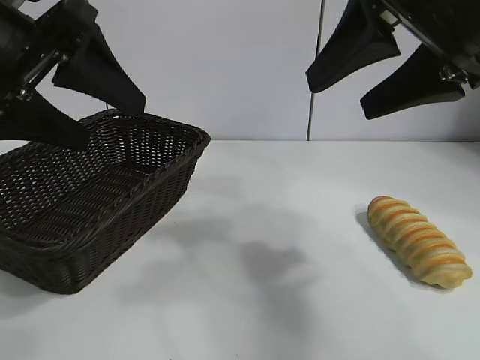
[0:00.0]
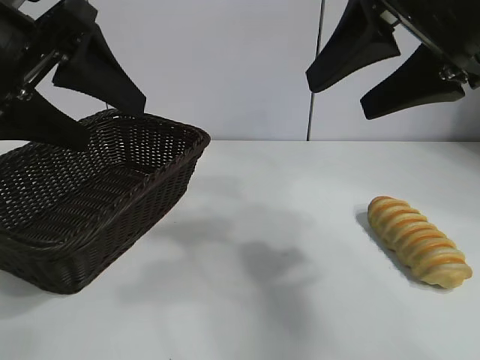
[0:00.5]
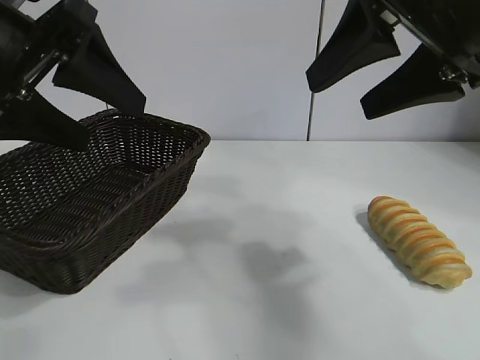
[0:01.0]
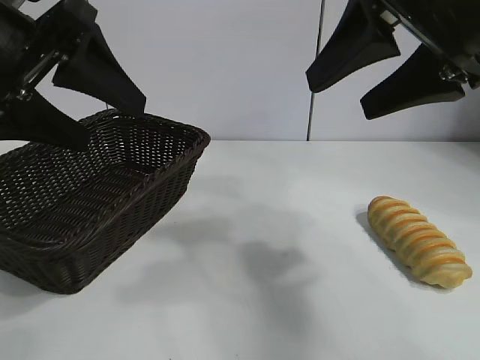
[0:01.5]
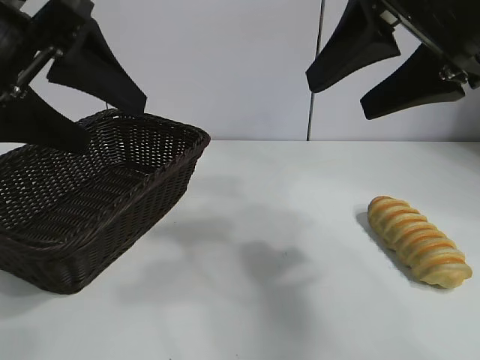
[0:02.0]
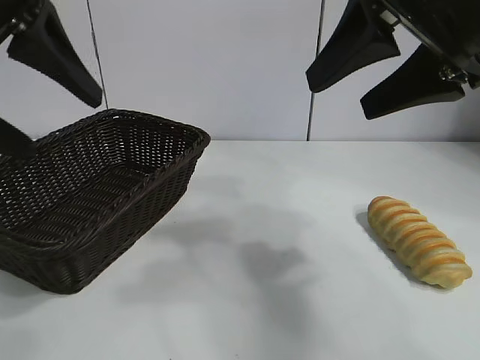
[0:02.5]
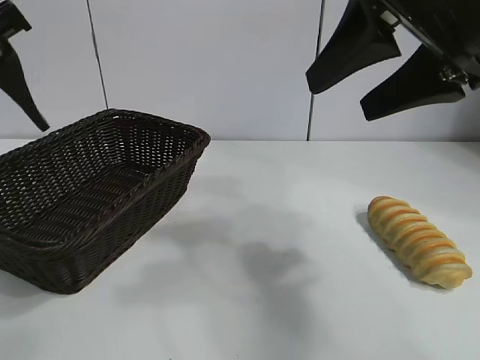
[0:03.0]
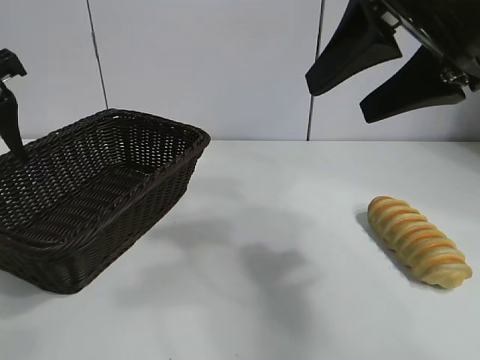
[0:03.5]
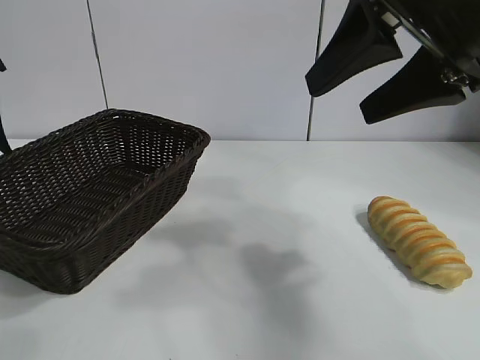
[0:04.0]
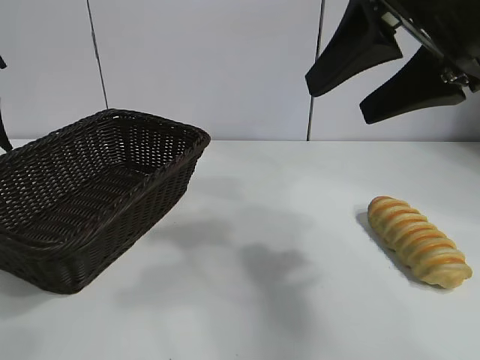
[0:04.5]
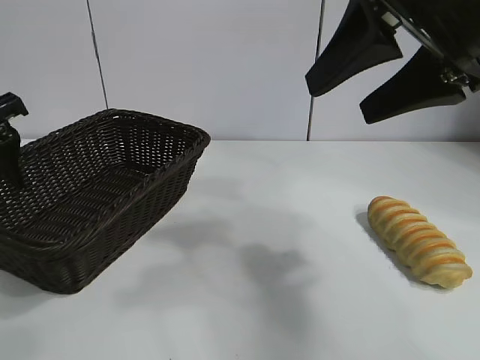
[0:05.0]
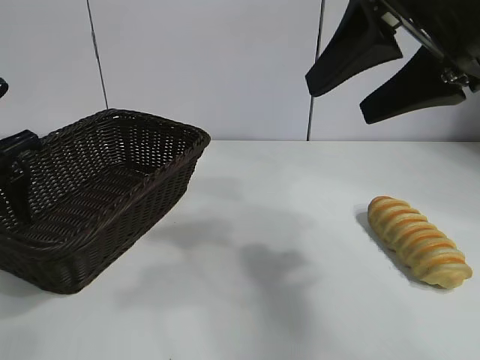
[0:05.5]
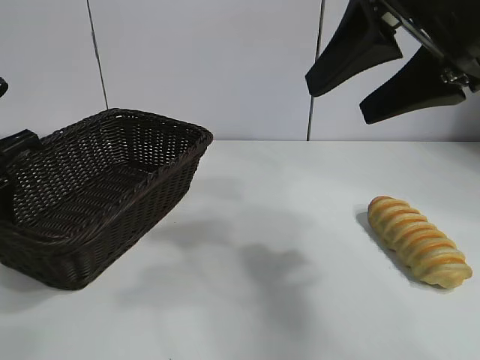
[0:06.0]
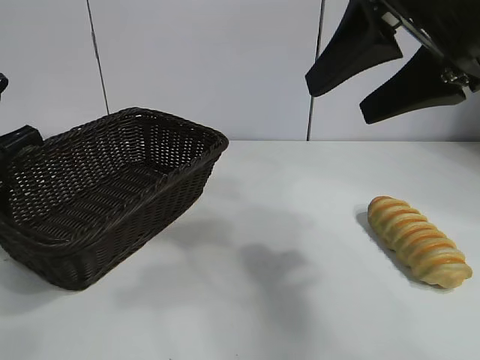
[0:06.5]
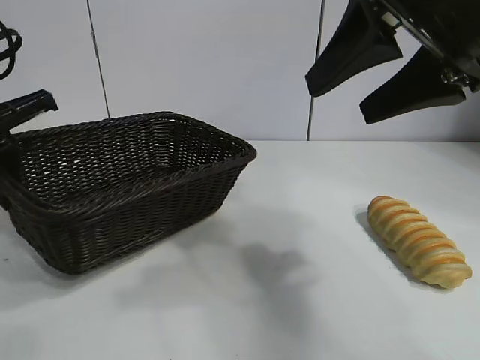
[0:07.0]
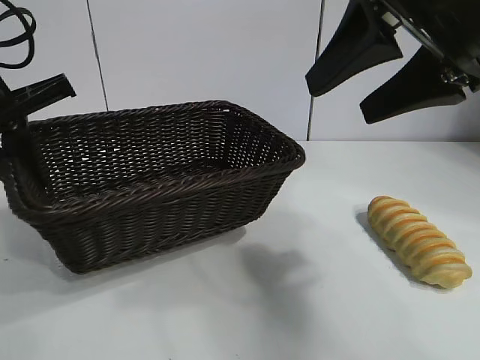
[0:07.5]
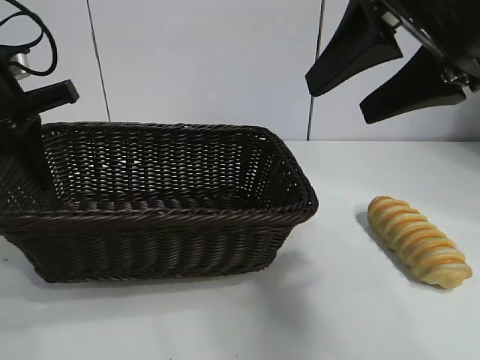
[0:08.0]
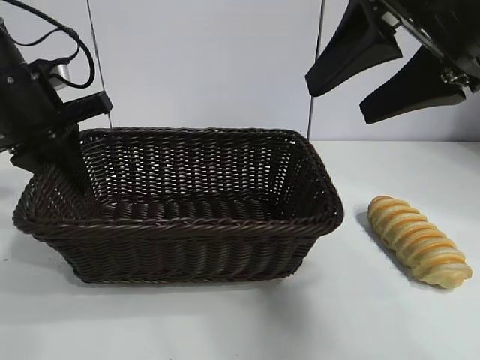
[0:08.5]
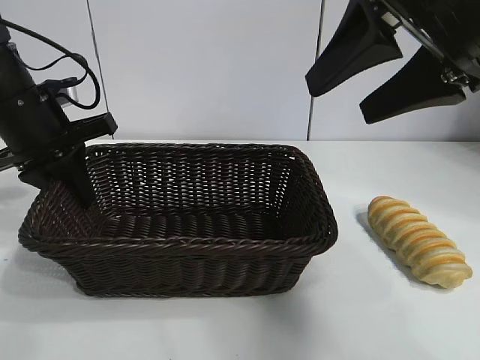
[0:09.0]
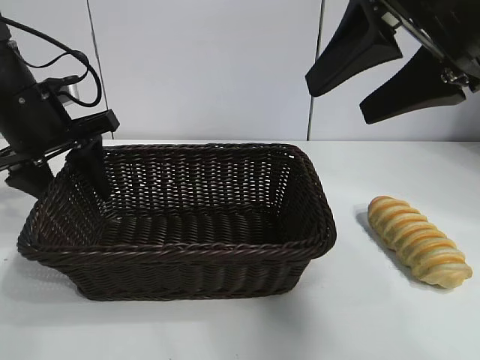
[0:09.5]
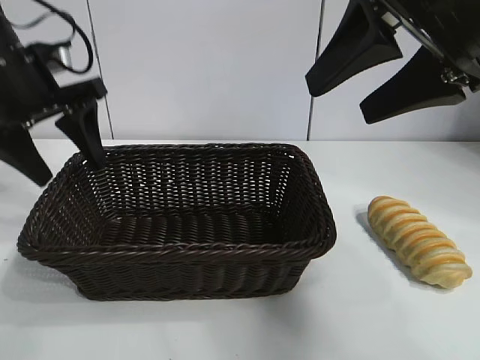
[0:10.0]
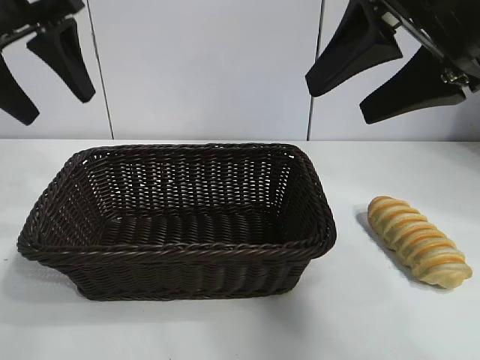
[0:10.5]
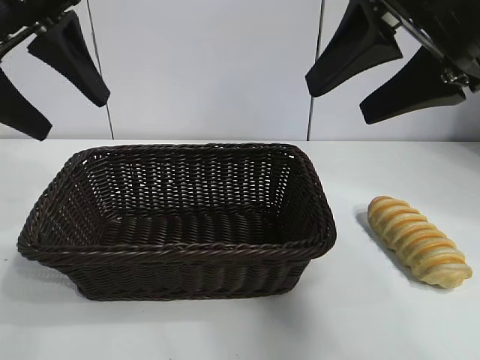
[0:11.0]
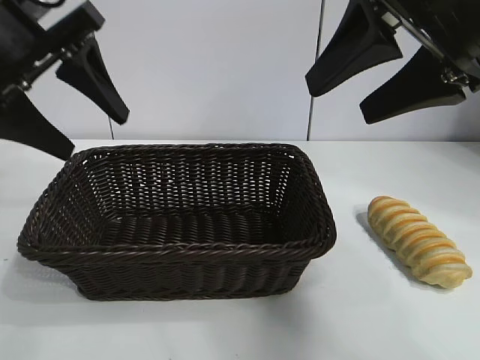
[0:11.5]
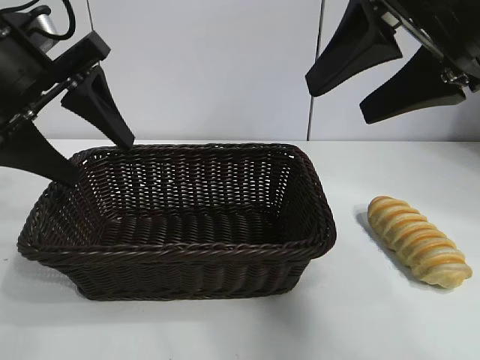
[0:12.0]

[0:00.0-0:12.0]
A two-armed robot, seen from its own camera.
Task of the whole recording: pick up the long bread and put it into the basket.
Step, 0:02.0 to 0:06.5: Grasp the basket with the left gripper.
Step, 0:07.0 to 0:09.5: Place the basket in the center of the table with the left gripper.

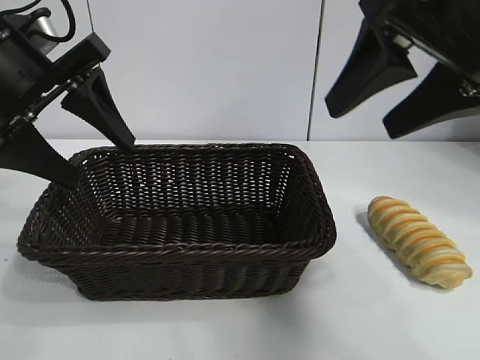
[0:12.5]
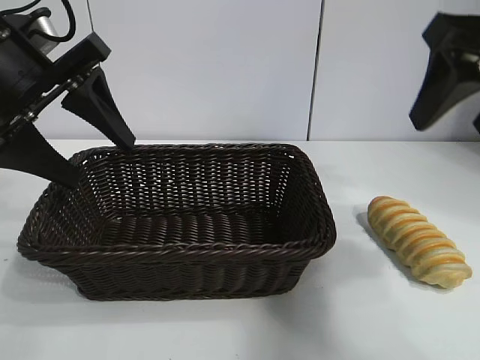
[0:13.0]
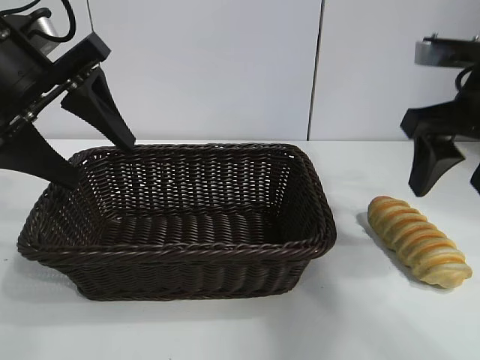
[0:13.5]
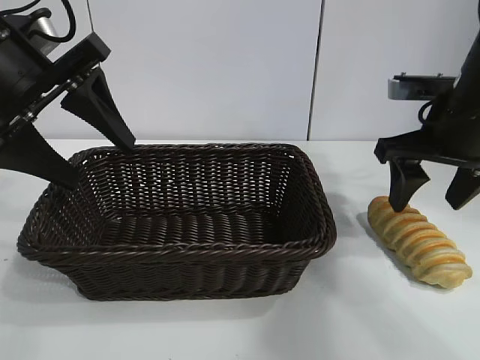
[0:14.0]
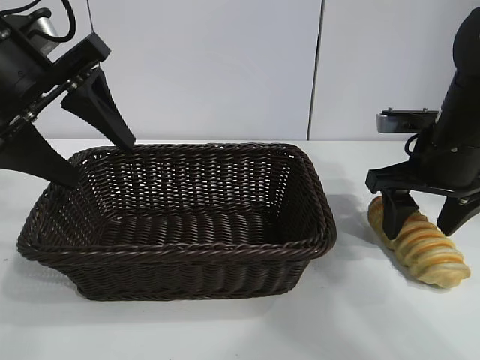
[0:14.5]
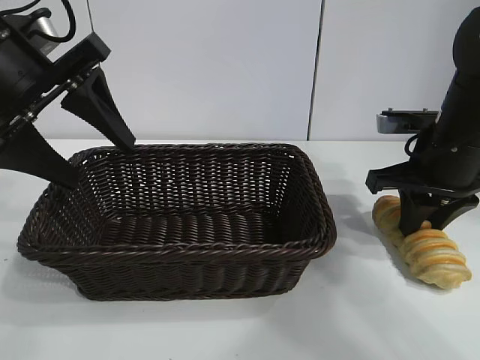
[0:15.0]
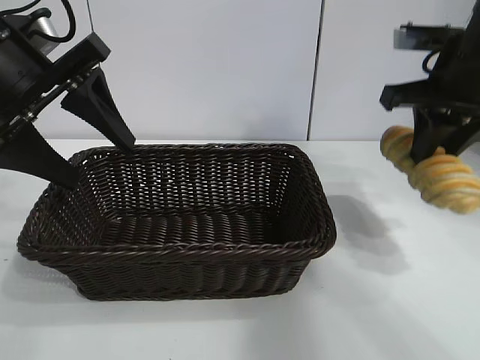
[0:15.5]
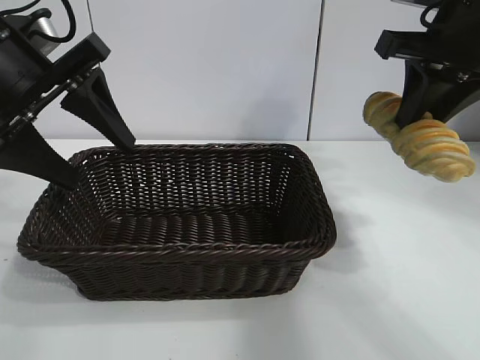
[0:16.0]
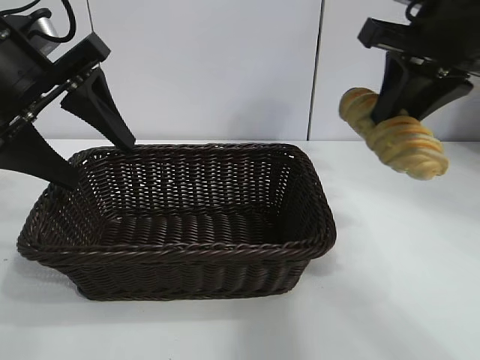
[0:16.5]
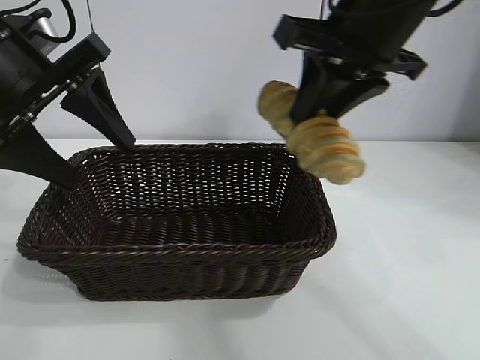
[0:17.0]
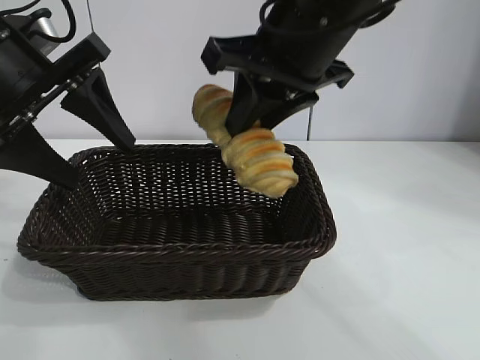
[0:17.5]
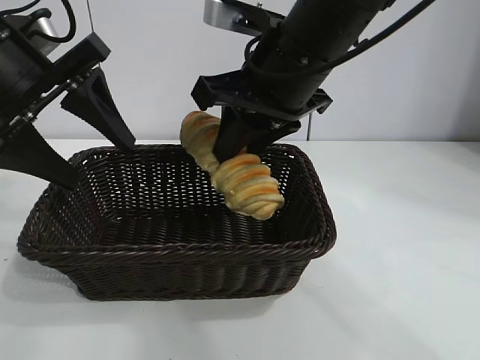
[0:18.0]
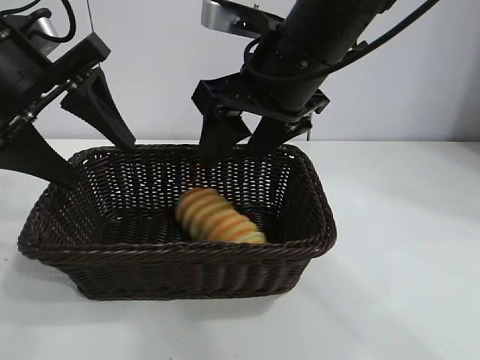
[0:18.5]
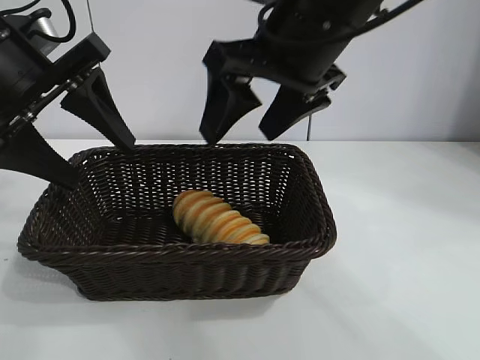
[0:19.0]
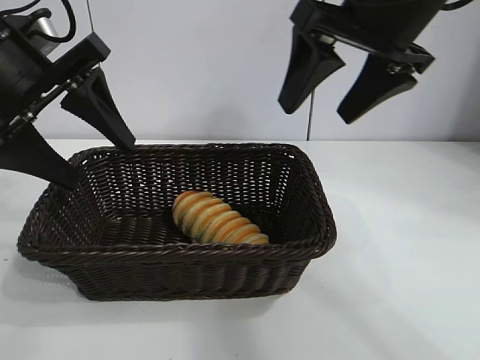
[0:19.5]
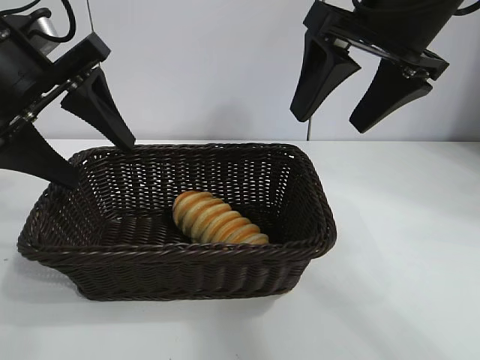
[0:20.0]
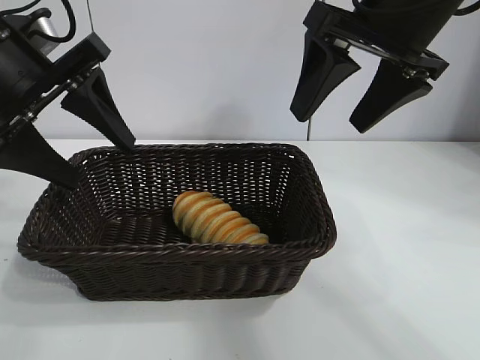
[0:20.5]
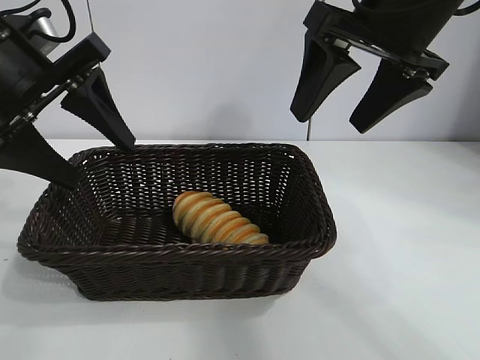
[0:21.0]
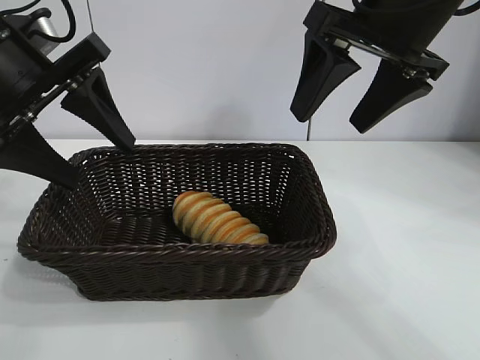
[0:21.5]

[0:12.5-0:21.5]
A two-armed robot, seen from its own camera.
Task of the whole recording: pick up the long bread and put it into the basket.
Step, 0:12.5 to 0:14.5: Grasp the long bread with right gripper.
Step, 0:15.5 to 0:18.5: Place the long bread in the basket with right gripper.

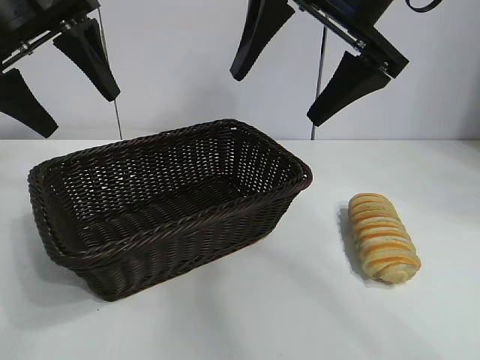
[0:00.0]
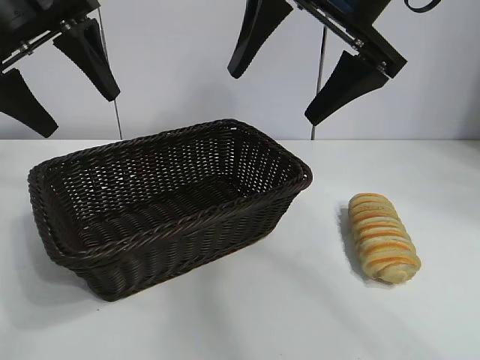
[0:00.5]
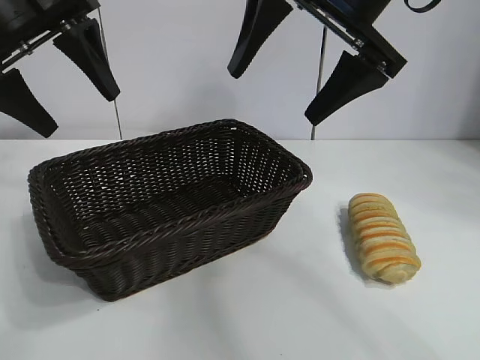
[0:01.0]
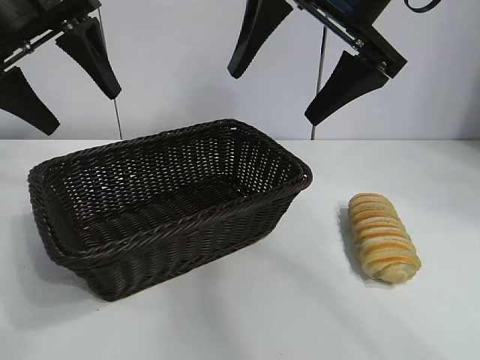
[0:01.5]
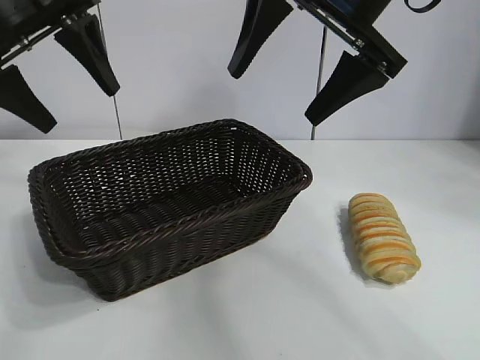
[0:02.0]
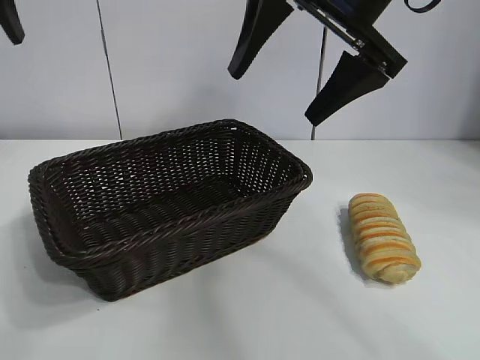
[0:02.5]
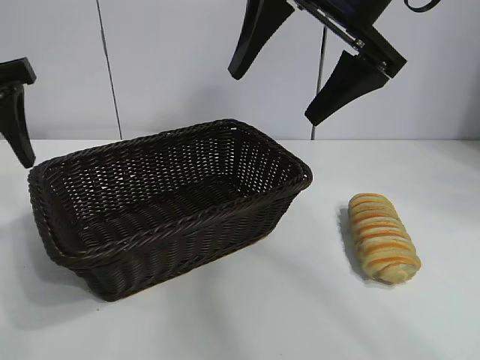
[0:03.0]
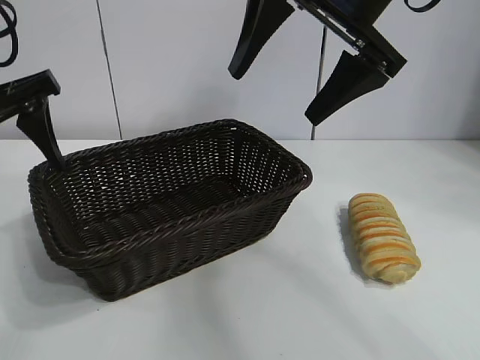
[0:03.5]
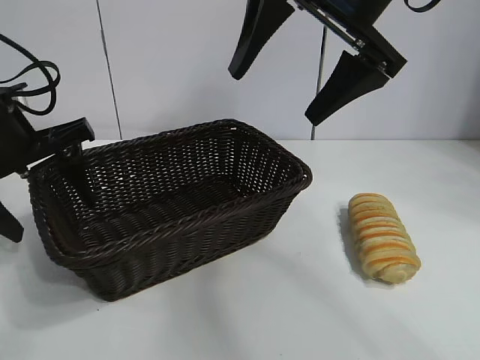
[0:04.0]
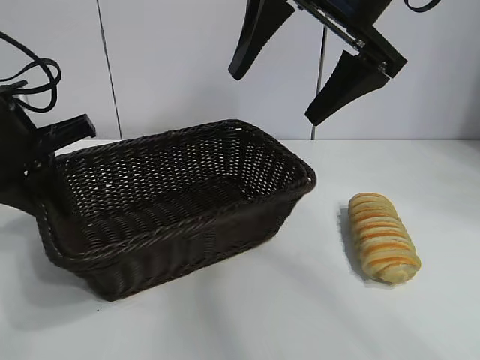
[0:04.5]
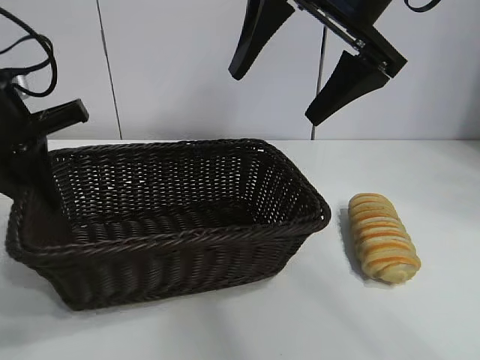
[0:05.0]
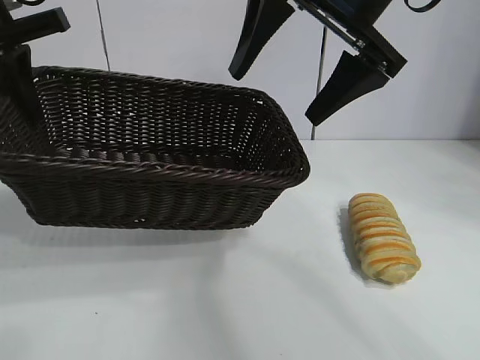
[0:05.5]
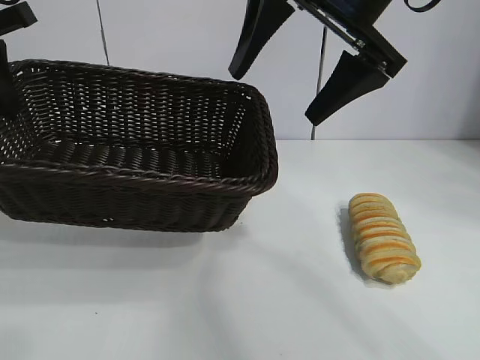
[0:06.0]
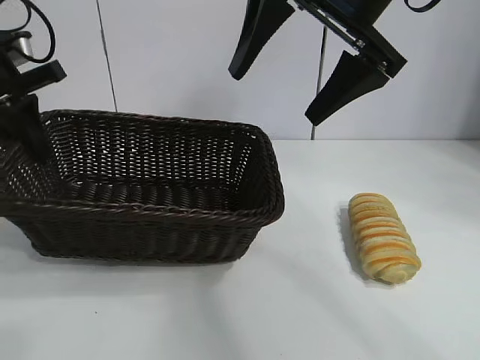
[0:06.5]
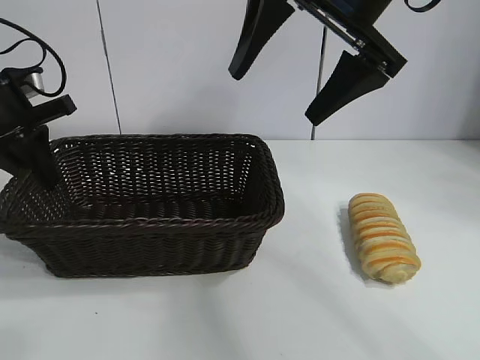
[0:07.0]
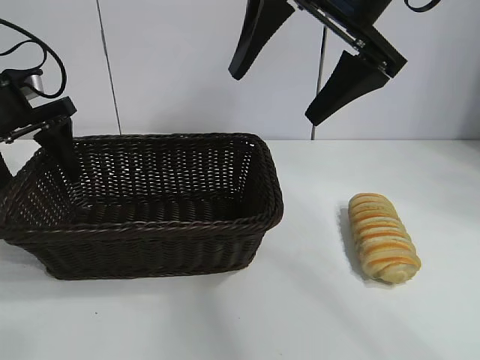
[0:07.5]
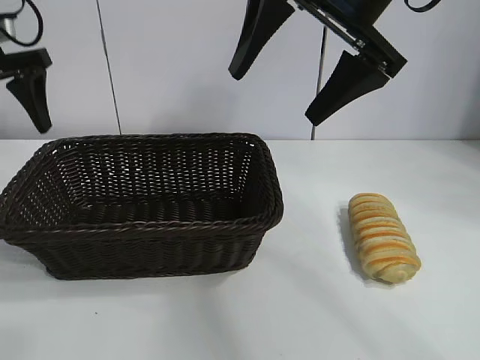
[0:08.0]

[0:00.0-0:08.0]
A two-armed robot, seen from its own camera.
Task of the whole recording: pick up the long bread and put it into the basket.
Step, 0:02.0 to 0:04.5: Grasp the basket with the left gripper.
Step, 0:05.0 to 0:07.0: Place the basket in the center of the table with the left gripper.
